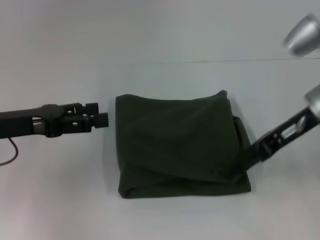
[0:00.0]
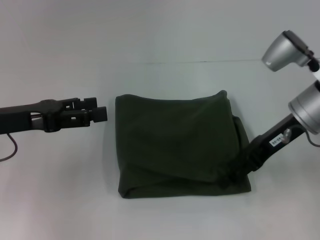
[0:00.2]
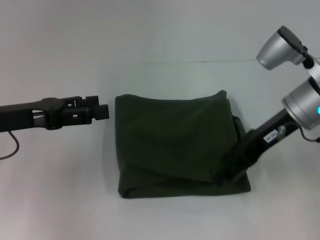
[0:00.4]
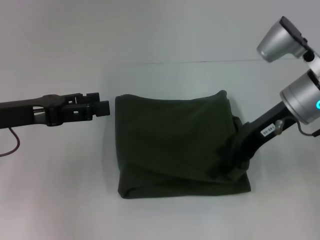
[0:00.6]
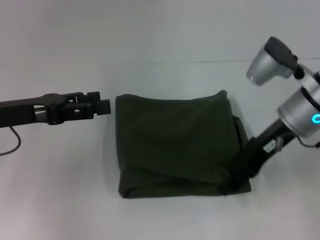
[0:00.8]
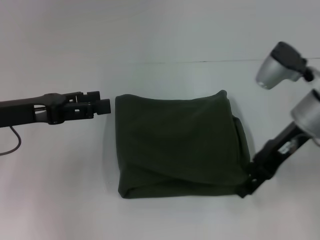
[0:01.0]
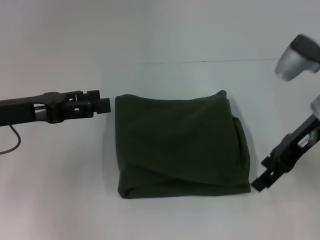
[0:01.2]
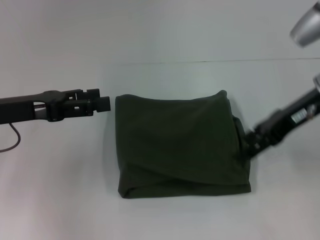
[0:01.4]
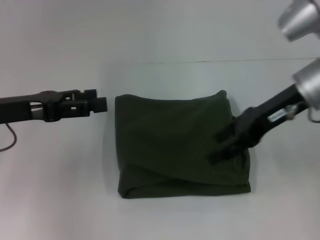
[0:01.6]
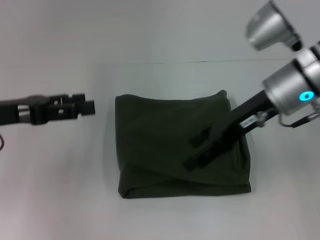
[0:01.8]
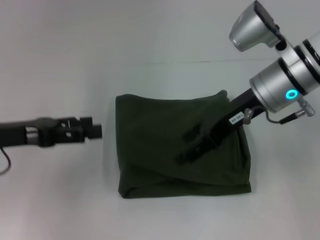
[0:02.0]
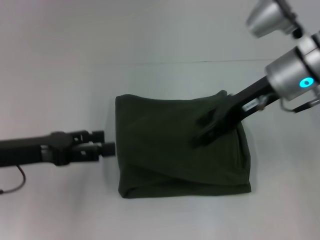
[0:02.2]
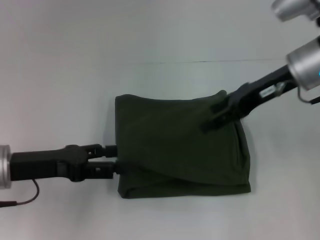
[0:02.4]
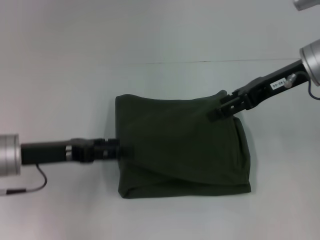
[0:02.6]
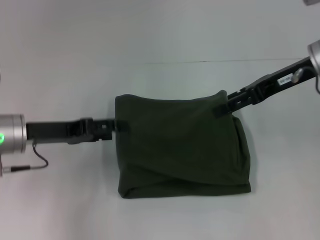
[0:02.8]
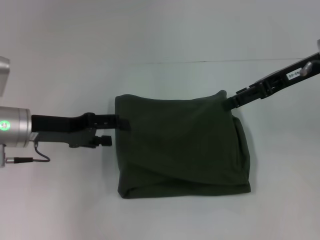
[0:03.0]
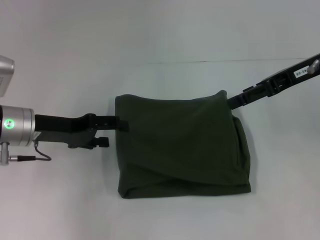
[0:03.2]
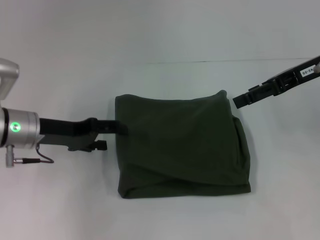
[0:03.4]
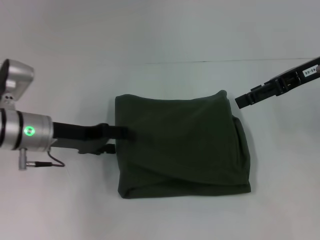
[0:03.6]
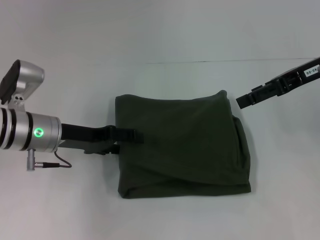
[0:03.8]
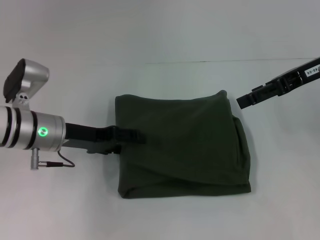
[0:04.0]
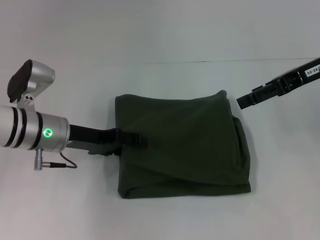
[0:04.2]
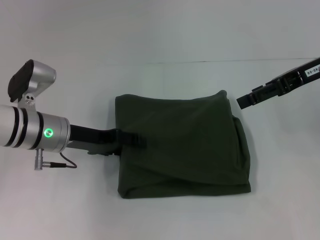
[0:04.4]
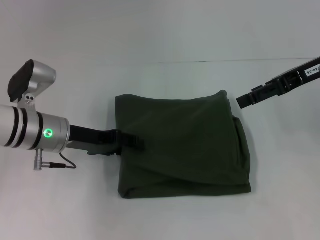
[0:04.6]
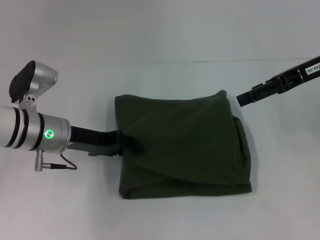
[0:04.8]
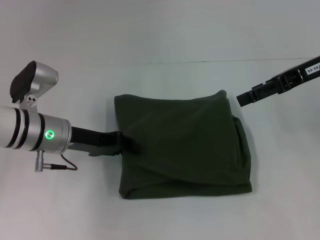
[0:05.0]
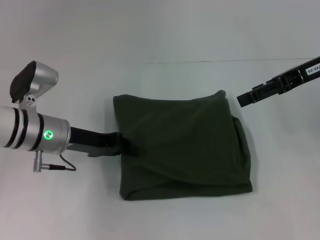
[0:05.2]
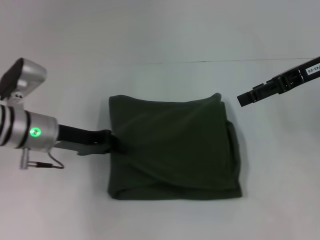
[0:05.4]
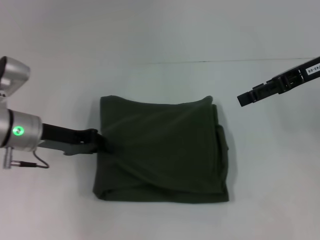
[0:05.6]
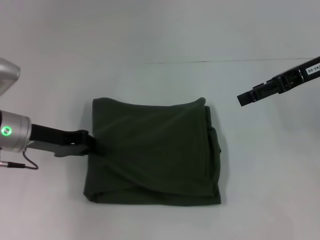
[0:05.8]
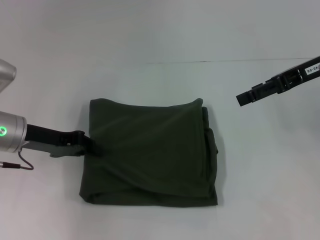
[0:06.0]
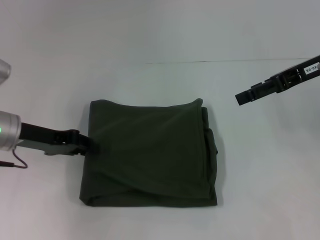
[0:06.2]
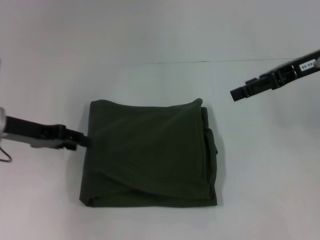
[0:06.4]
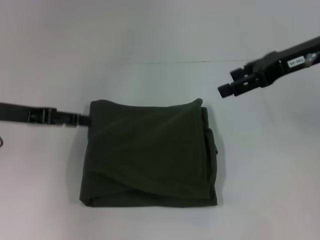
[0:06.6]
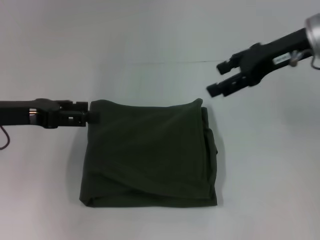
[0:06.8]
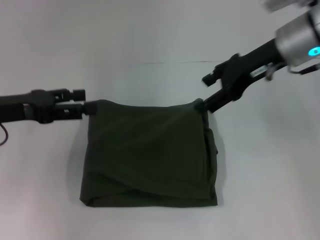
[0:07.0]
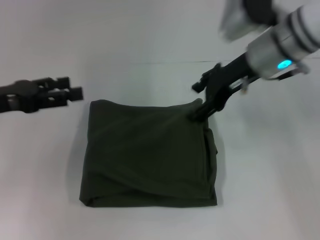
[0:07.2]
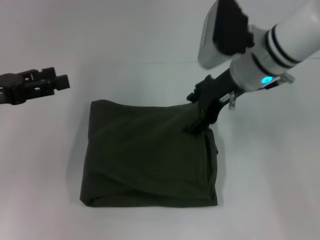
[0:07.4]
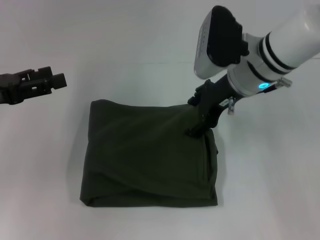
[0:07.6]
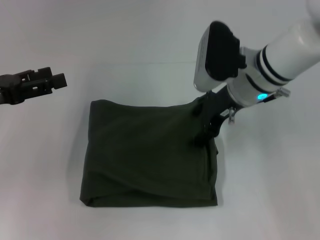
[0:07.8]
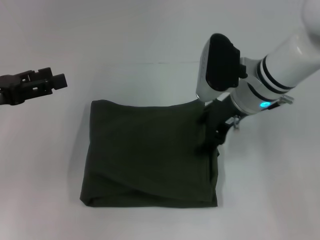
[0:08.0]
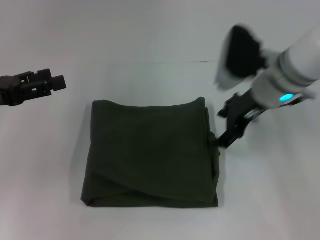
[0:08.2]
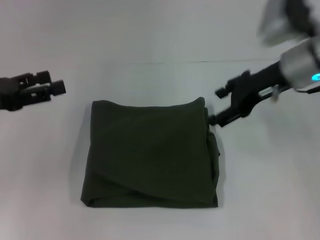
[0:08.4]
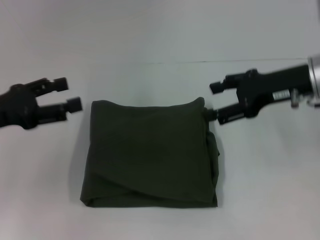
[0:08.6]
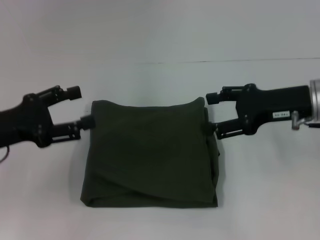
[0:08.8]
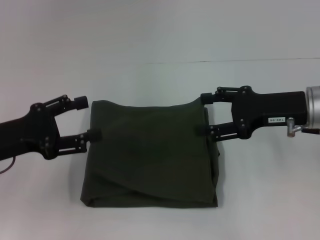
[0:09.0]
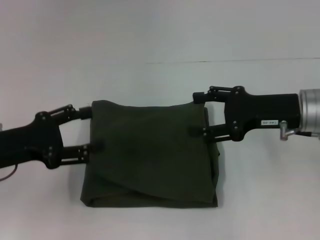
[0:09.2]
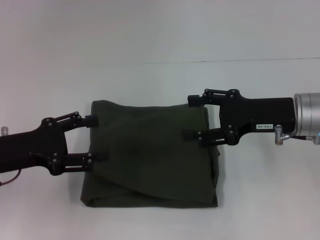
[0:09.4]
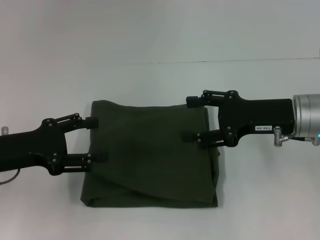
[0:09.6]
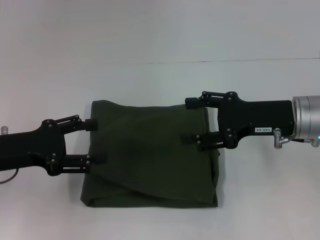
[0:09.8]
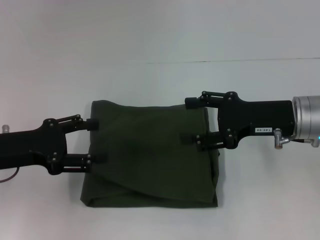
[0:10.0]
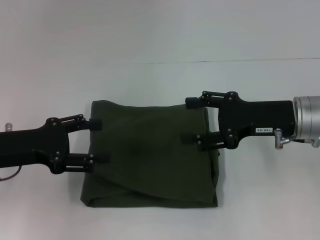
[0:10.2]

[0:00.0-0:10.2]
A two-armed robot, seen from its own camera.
0:00.0 to 0:01.4: The grippers make only small movements.
0:01.4 to 0:03.0: The left gripper ends up approximately 5 cm from where it was. The right gripper goes to the left and returns, some 10 cm each way.
0:03.0 to 0:04.4: The left gripper moves roughly 5 cm.
0:04.4 to 0:05.8: The left gripper goes roughly 5 cm to the left, and closes.
0:05.8 to 0:07.2: The right gripper heads to the left, covering some 10 cm. Meanwhile the left gripper travels to the left and upward by about 10 cm, and opens up.
0:07.2 to 0:08.8: The right gripper goes about 10 cm to the right, backward and downward.
0:08.8 to 0:10.2: The grippers stay close to where they were, moving slightly.

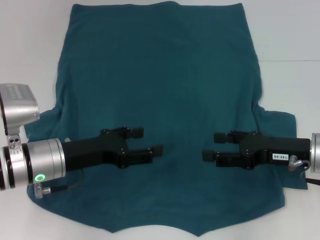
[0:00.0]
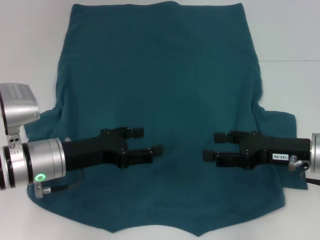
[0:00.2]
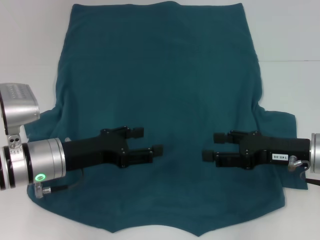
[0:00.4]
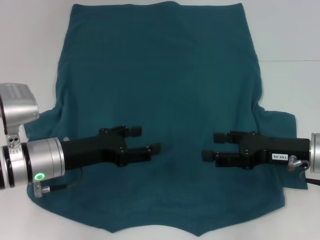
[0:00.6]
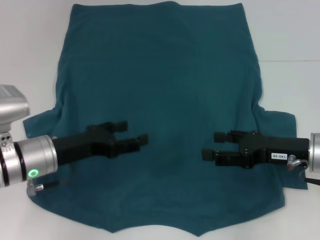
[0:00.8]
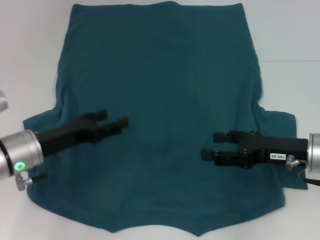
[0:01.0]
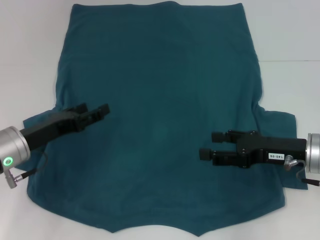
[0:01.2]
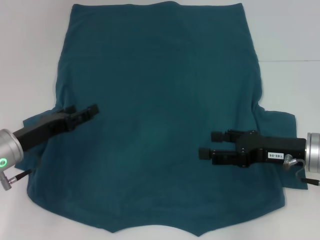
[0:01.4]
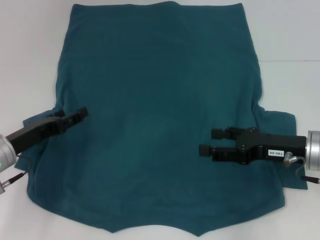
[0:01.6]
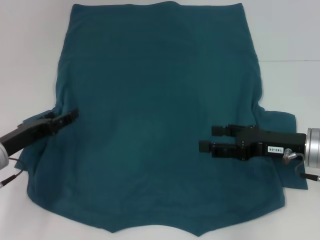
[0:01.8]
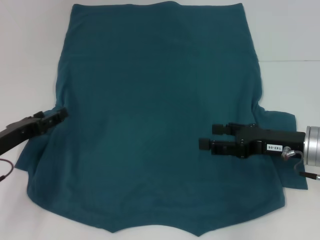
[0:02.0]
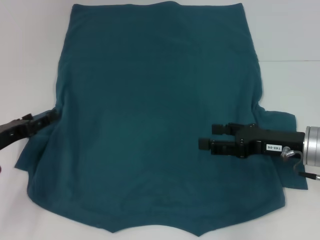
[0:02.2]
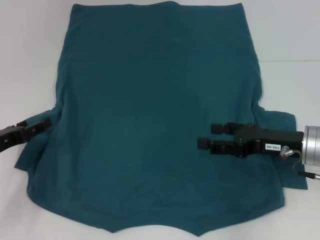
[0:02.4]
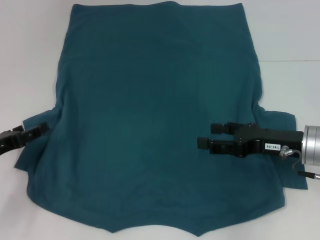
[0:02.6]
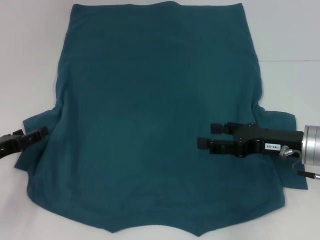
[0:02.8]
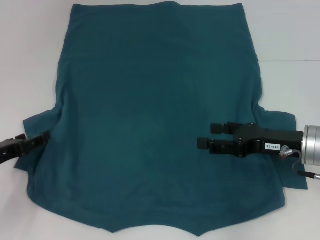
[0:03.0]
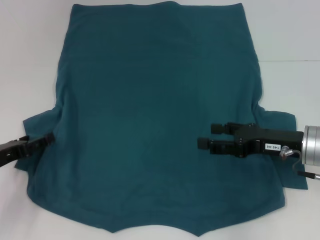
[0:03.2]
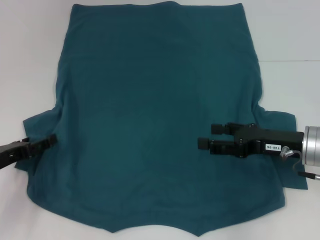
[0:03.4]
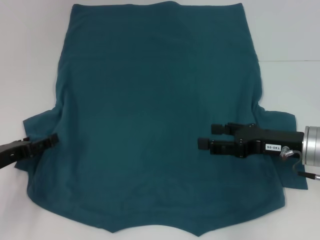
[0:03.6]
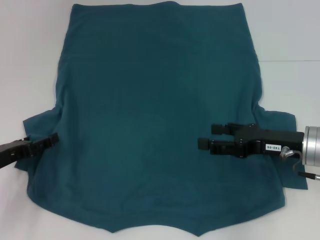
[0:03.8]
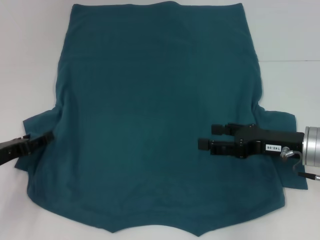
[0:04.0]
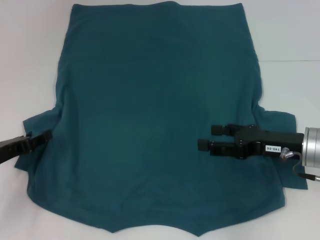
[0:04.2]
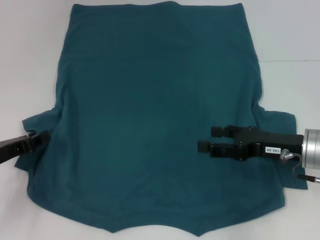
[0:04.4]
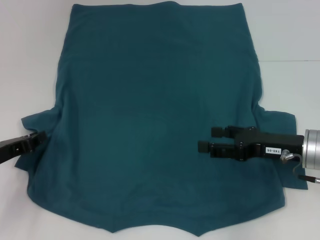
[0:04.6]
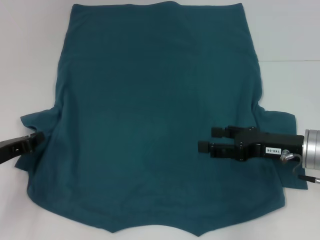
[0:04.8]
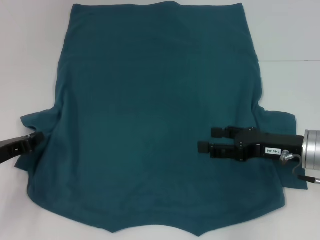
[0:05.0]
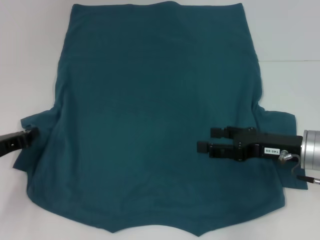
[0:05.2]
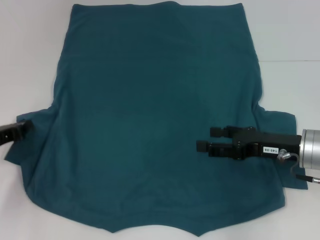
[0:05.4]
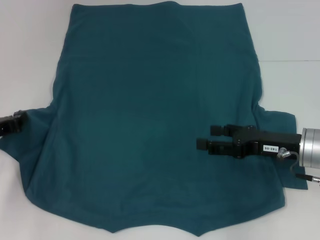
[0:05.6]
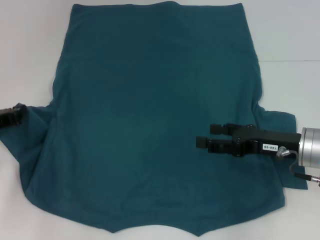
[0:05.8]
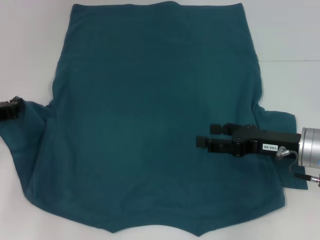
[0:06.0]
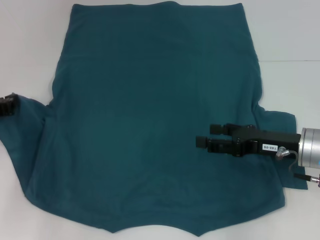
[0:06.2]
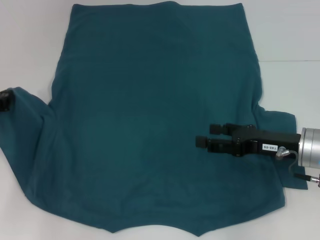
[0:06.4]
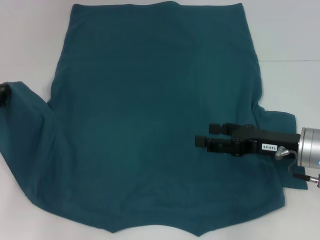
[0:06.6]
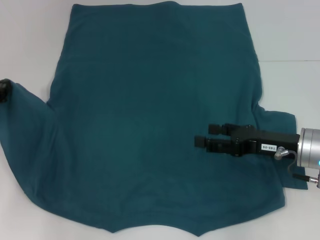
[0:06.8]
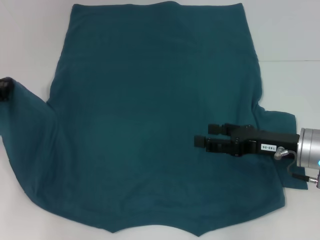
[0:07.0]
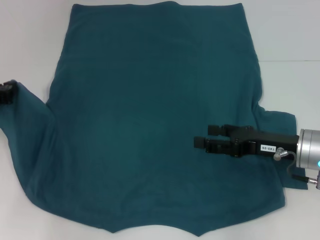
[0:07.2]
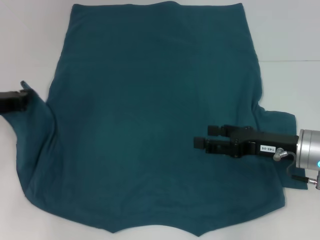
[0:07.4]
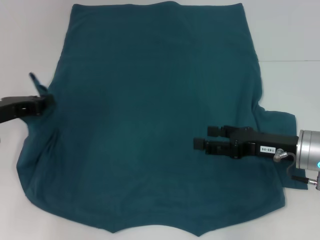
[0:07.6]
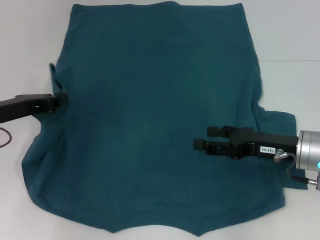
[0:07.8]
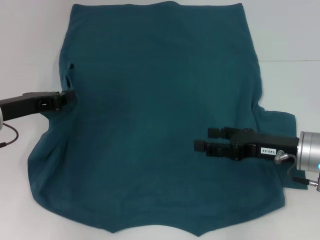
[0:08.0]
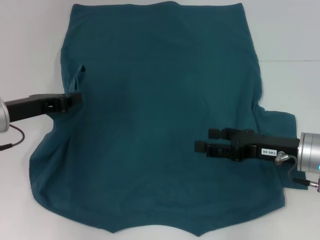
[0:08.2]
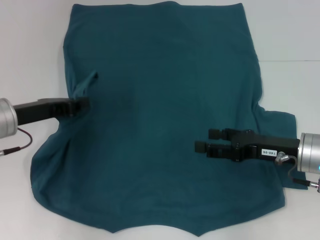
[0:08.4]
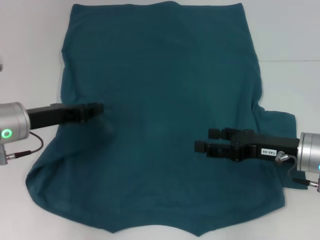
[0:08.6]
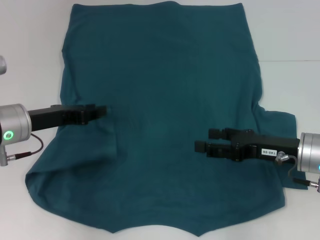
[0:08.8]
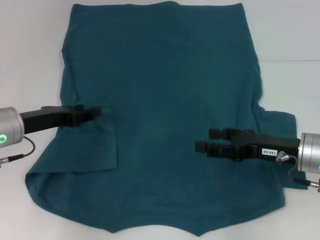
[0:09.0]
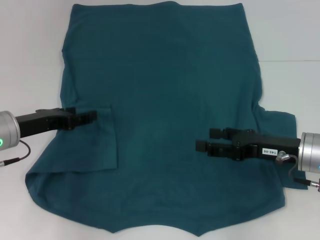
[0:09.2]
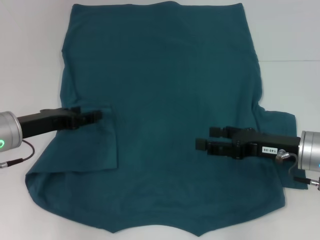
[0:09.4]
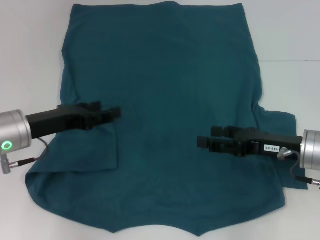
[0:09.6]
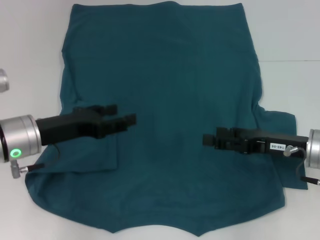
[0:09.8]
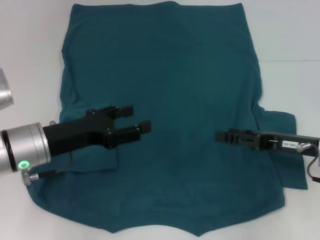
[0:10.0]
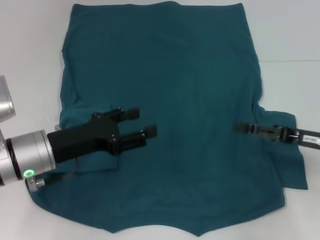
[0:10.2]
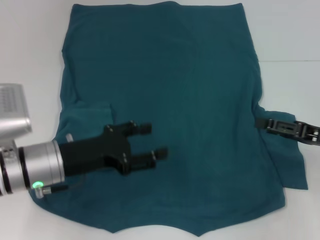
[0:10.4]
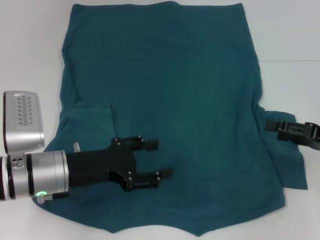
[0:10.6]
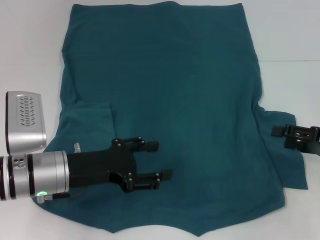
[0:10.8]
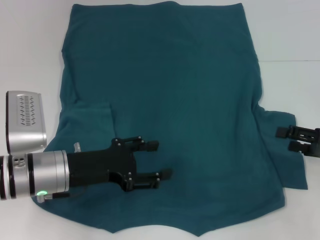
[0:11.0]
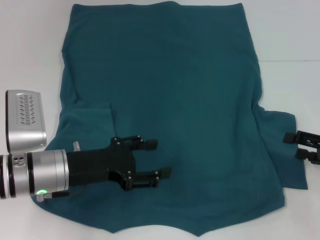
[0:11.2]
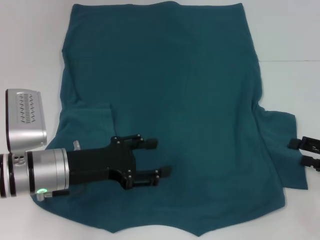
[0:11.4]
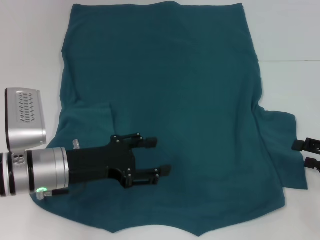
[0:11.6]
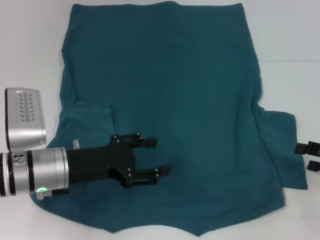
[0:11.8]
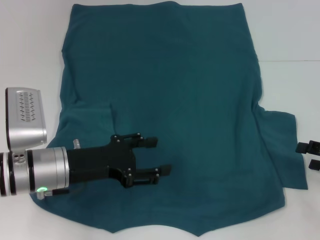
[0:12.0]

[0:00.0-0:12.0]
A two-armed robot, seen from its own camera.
Step, 0:00.0 to 0:09.4: Fold the bottom left sleeve with your left hand.
0:00.0 to 0:01.6: The left gripper is displaced to the left by some 10 cm.
0:01.6 to 0:03.0: The left gripper ends up approximately 5 cm from where it was.
0:04.4 to 0:06.0: The left gripper changes place by roughly 5 cm, and closes its fingers.
0:06.0 to 0:07.6: The grippers move only a little.
0:07.6 to 0:09.0: The left gripper opens.
0:09.0 to 0:10.4: The two grippers go about 5 cm to the right. The left gripper opens its fingers.
0:10.4 to 0:12.0: The right gripper goes some 5 cm to the right.
